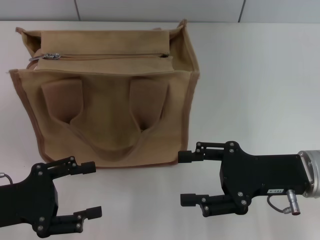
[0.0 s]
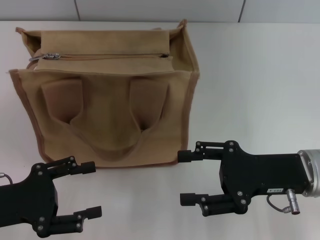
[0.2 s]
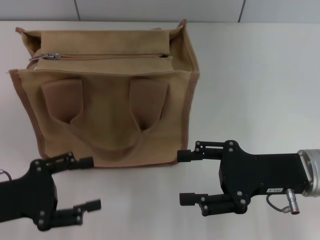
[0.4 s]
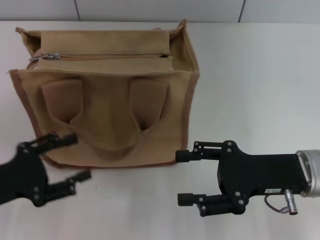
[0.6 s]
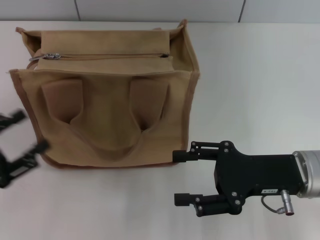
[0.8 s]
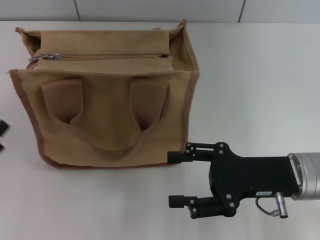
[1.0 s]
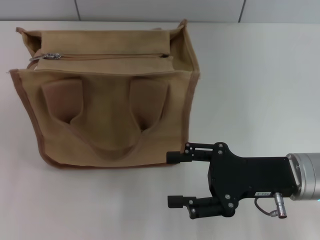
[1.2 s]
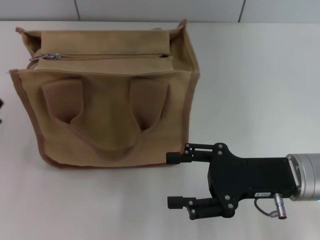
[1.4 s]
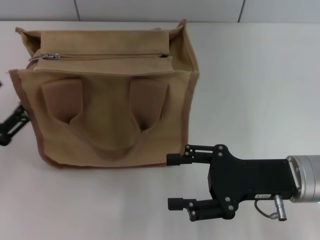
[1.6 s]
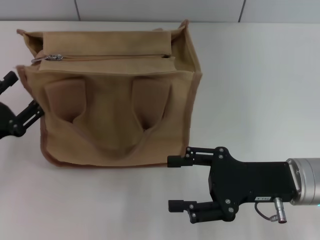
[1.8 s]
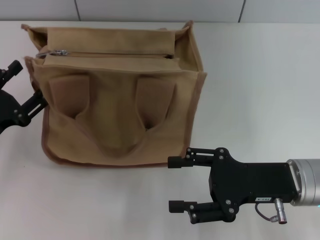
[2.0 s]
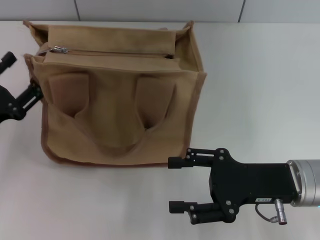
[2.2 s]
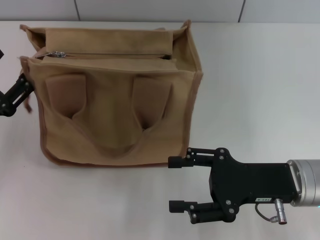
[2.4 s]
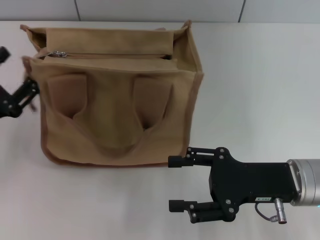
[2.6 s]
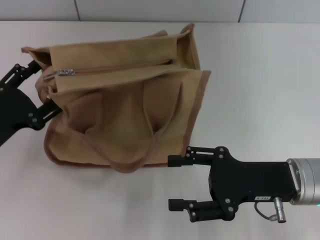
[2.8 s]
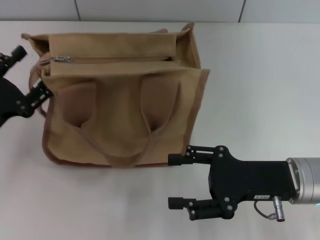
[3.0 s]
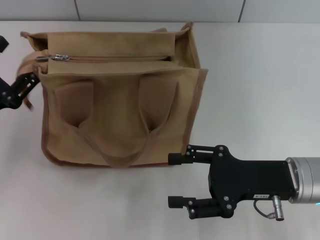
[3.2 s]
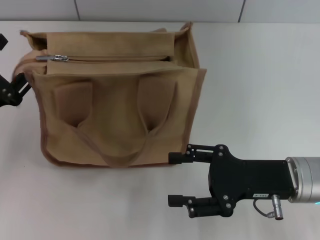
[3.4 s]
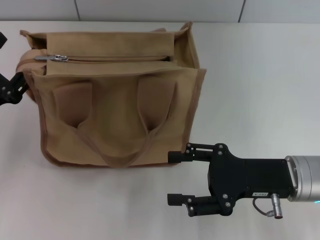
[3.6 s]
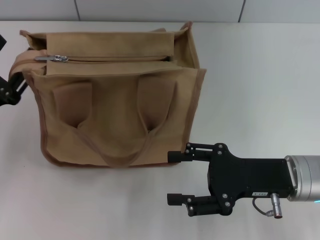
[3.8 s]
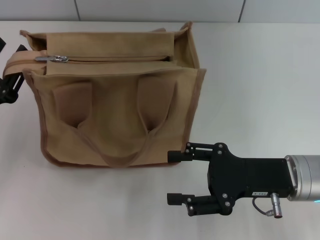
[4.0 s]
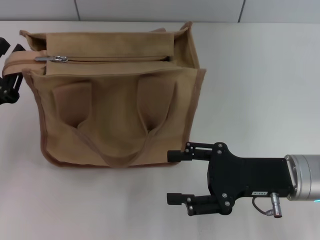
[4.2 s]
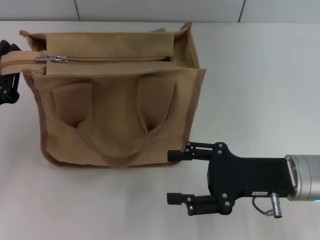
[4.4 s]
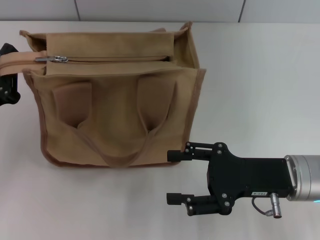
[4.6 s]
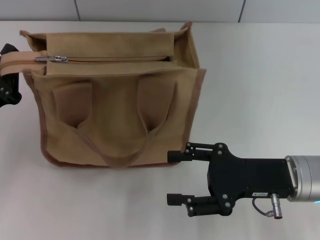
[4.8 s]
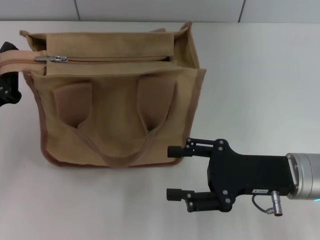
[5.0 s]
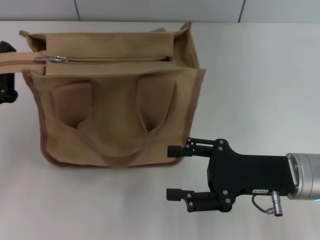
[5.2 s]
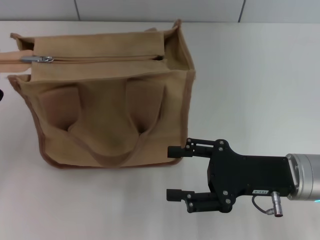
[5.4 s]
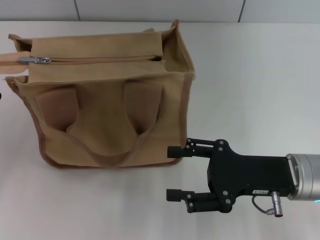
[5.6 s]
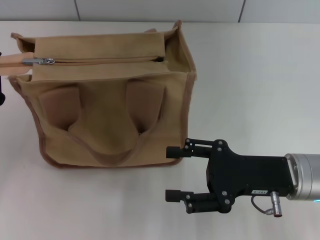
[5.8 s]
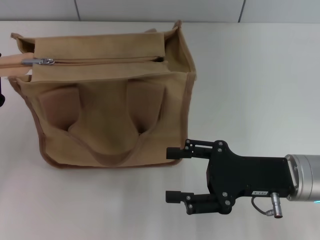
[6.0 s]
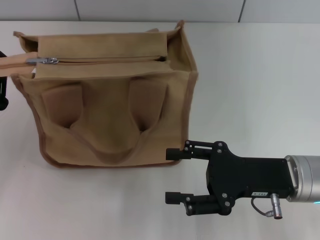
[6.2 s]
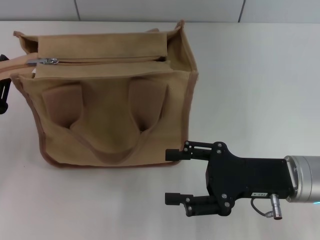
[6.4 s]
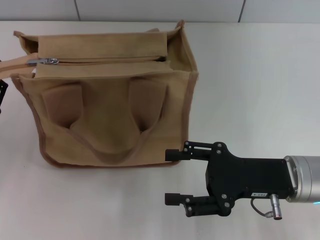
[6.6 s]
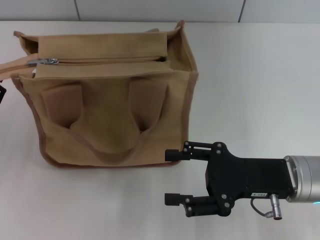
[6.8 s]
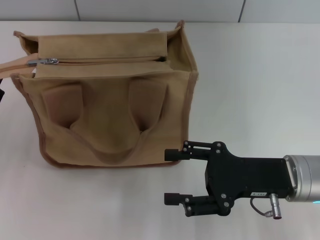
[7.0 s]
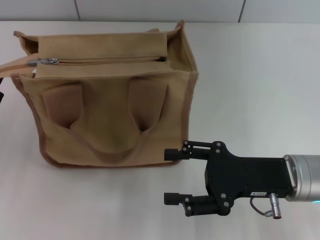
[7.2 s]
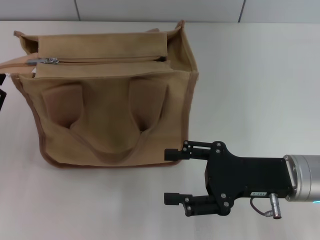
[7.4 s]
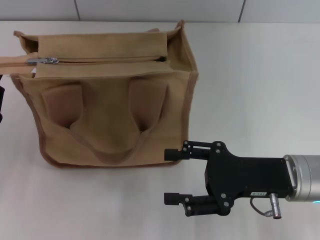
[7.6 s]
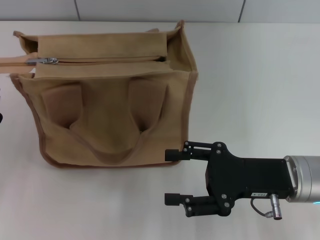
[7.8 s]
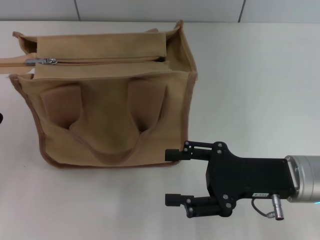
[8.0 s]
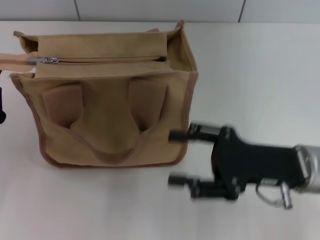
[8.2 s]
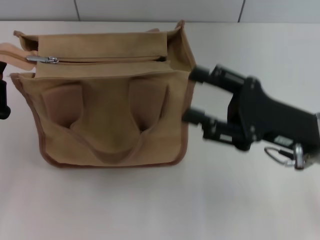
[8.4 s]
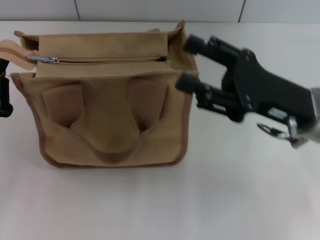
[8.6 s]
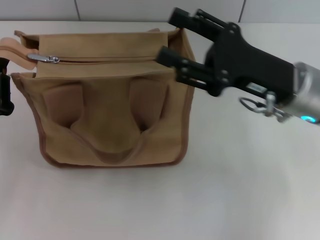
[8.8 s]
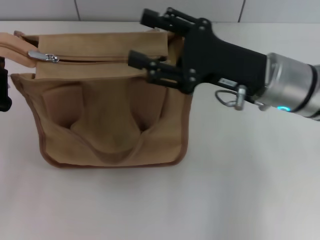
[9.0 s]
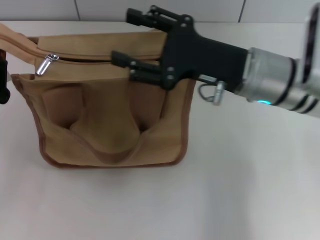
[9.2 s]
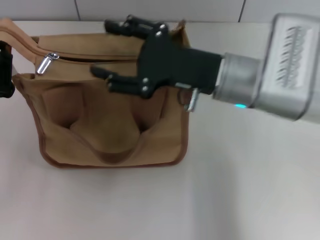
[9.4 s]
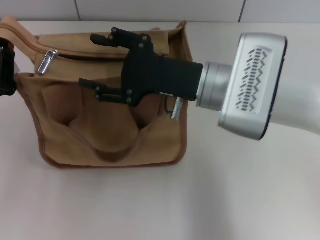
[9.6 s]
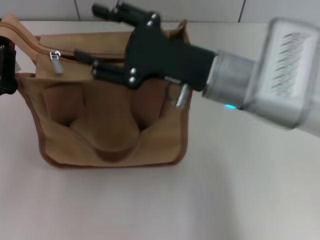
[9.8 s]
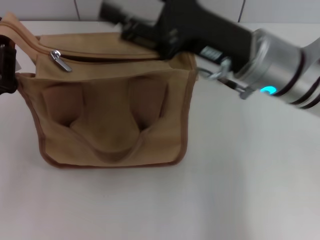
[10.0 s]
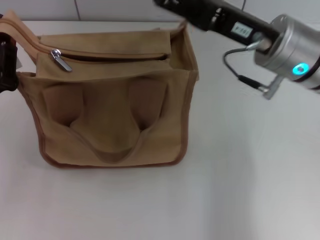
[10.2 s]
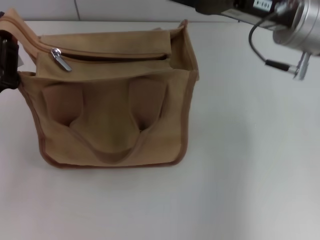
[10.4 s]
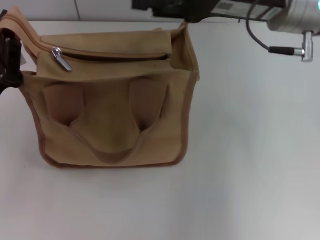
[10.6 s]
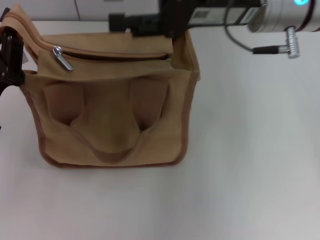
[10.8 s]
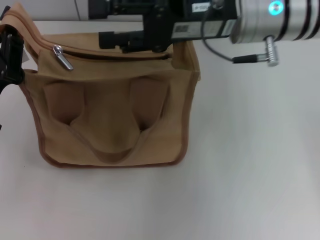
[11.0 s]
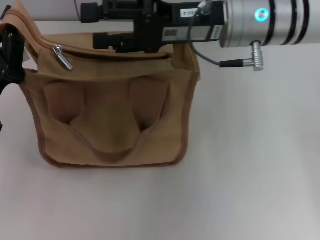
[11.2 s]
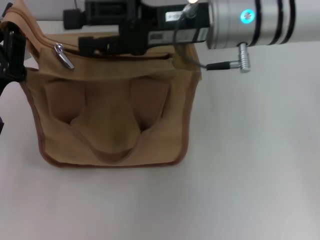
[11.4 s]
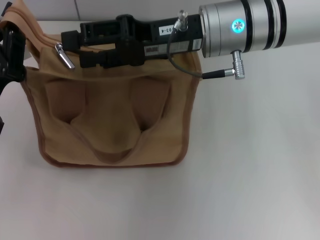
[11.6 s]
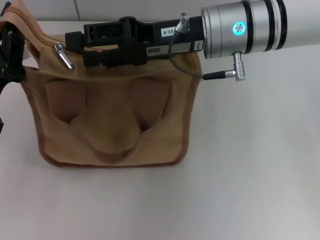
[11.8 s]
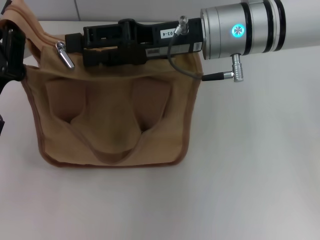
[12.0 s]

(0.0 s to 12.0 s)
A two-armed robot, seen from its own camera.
1.6 s - 3.0 s: The left gripper moves approximately 5 cm.
3.0 s - 4.4 s: The left gripper closes its fingers.
4.4 s - 6.0 s: The left gripper closes its fingers.
6.0 s - 7.6 s: The left gripper opens.
7.6 s - 9.0 s: The right gripper travels forward and upward by approximately 10 cm. The left gripper closes its fingers.
9.0 s - 10.4 s: The right gripper goes roughly 5 cm upward, and goes to the left and returns, approximately 5 cm each way.
10.4 s - 12.0 s: The right gripper goes approximately 10 cm to the left.

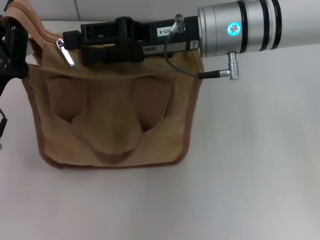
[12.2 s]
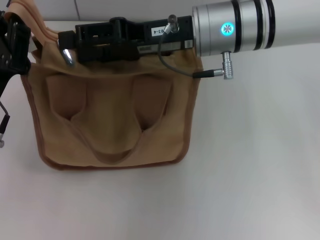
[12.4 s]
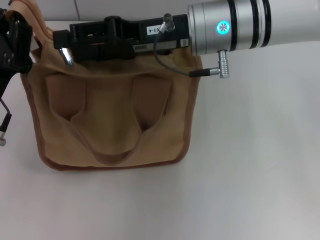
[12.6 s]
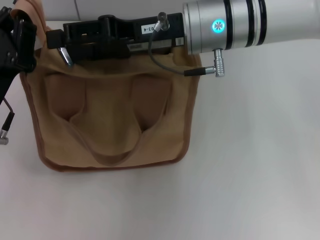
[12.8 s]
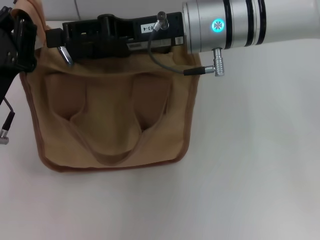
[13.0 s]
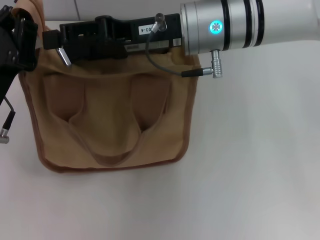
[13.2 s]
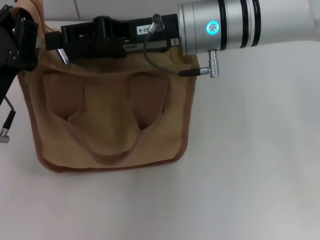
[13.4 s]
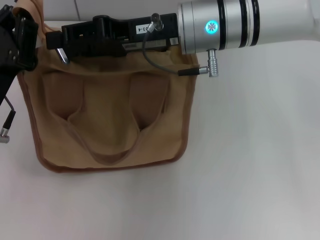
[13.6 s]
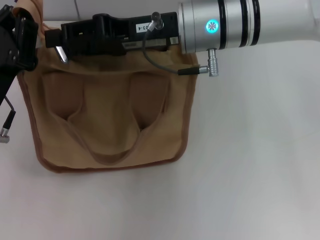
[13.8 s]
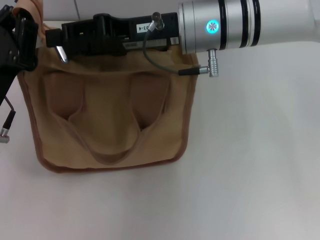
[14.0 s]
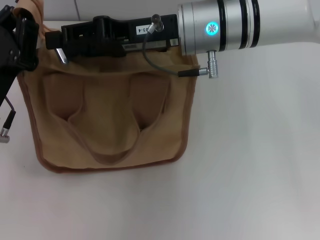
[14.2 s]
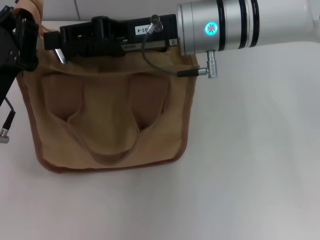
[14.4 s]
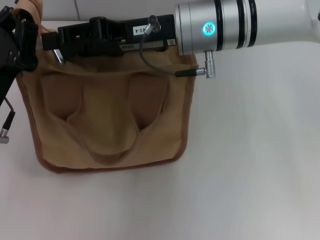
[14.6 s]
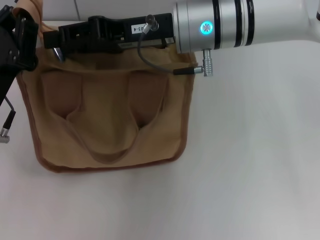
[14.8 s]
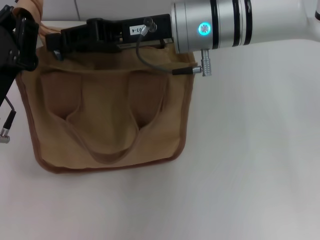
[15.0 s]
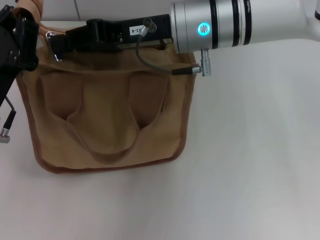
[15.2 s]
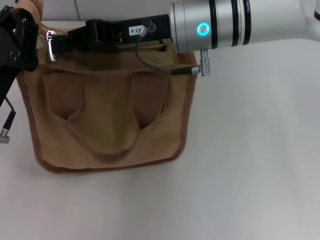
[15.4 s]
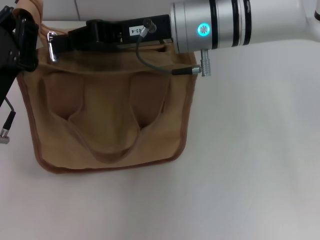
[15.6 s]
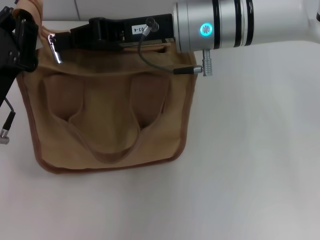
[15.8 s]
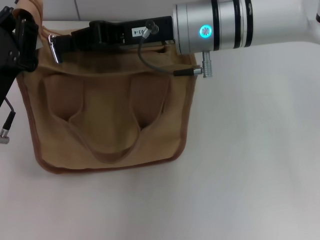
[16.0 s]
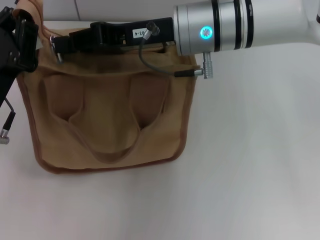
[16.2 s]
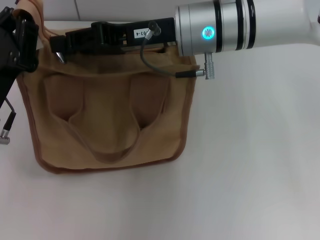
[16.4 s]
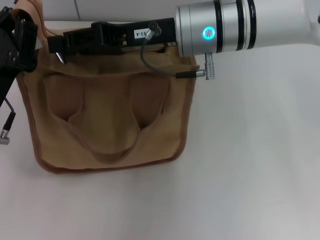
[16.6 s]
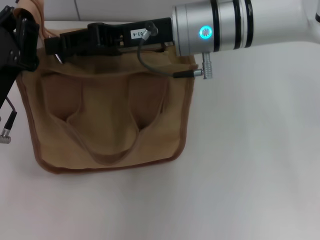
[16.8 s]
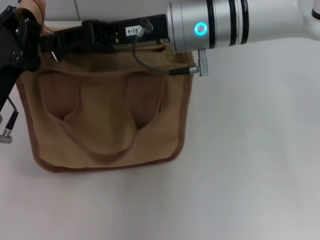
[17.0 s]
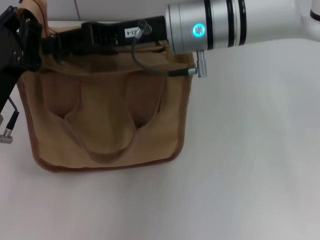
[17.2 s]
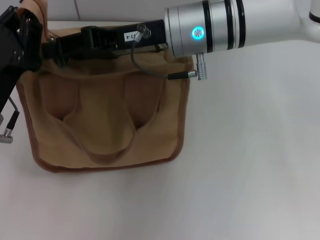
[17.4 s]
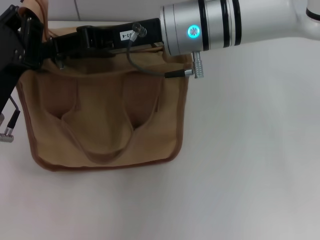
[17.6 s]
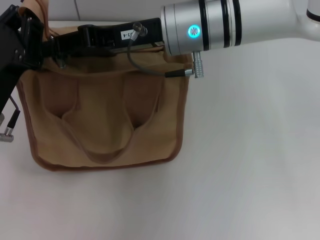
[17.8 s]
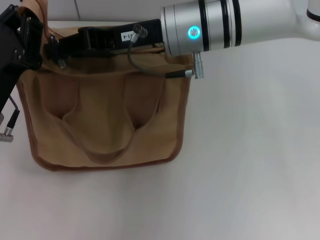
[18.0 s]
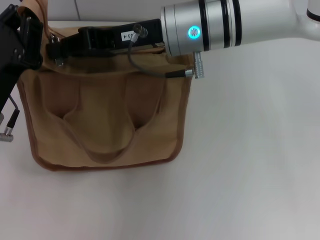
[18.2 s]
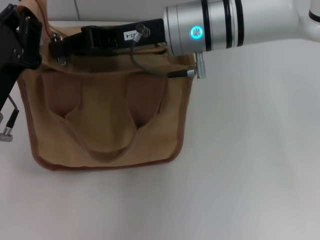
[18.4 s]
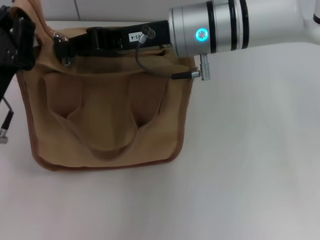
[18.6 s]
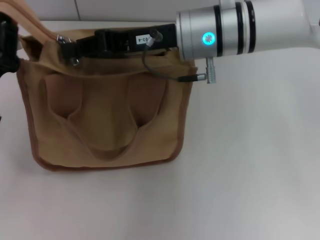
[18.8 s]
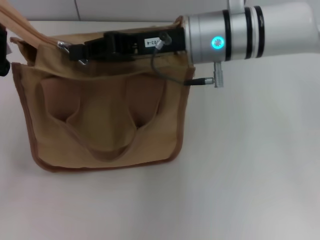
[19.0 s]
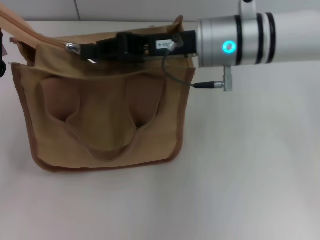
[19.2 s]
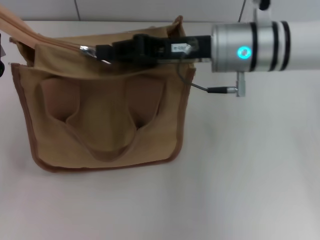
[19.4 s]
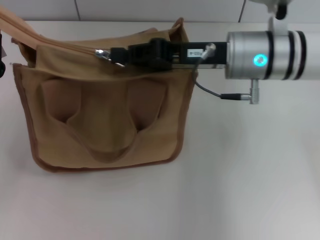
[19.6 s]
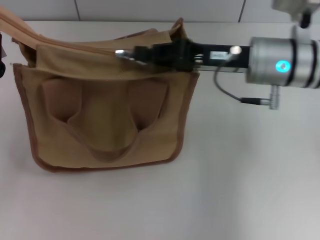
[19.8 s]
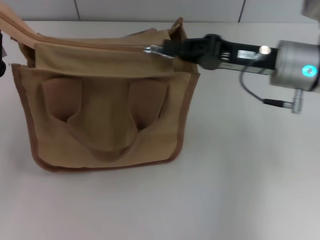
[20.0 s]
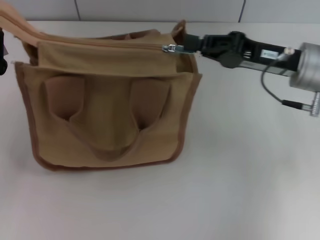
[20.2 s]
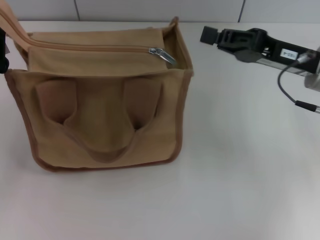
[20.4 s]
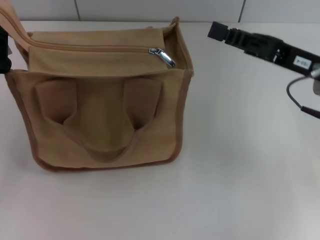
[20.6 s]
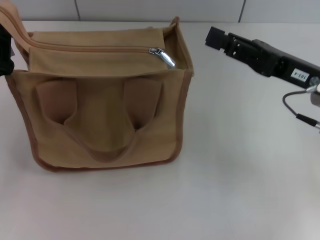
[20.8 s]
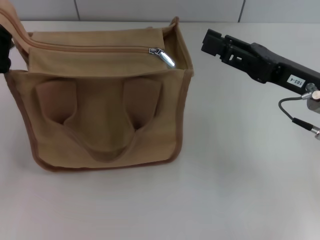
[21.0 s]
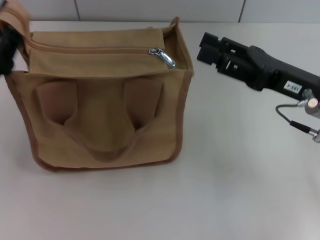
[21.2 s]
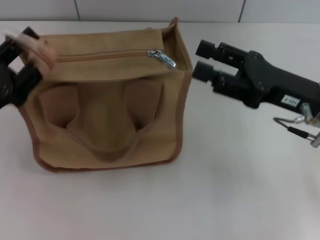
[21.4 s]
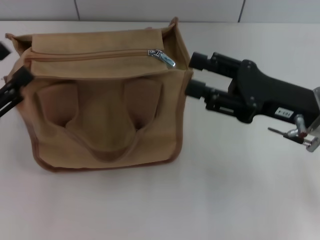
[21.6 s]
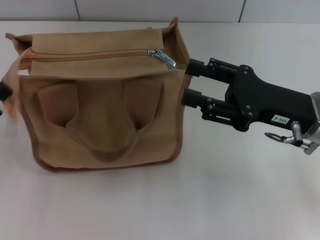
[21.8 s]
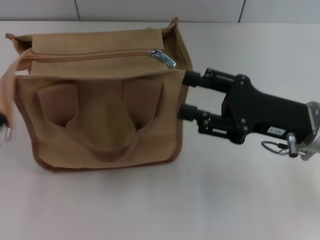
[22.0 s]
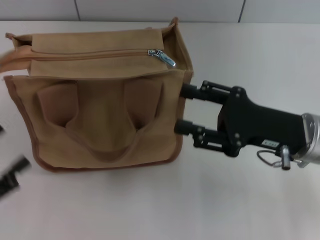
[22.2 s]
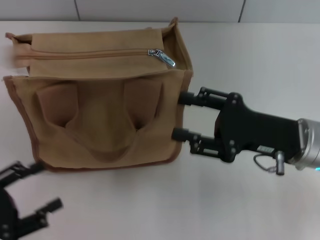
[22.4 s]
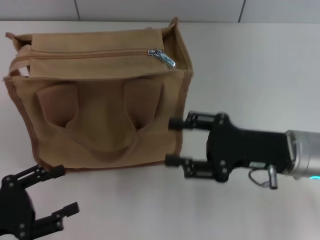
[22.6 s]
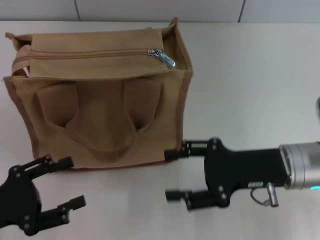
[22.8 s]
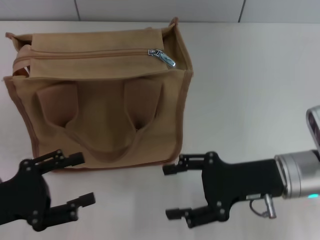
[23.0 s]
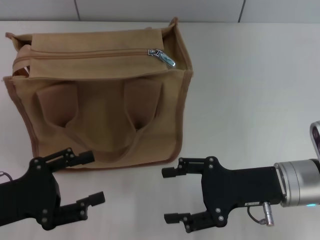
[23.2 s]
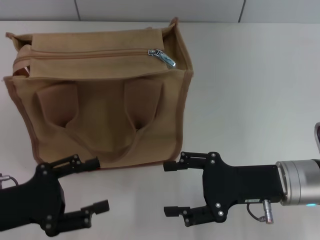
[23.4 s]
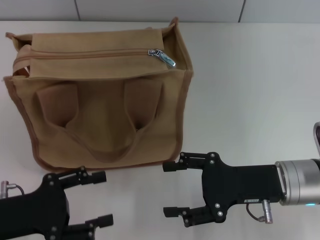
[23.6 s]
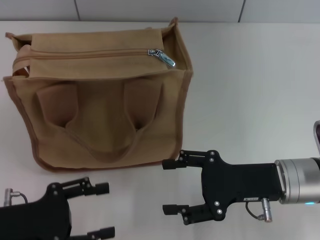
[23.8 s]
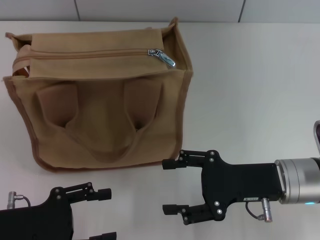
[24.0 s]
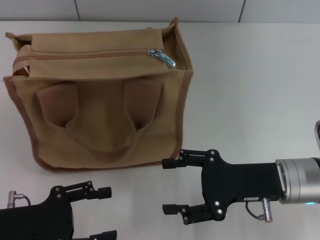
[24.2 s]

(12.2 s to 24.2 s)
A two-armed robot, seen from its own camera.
Step, 12.2 s - 20.2 s: Pull up the zipper with your right hand.
Step, 20.4 s - 21.6 s: Grab the zipper with your left hand.
12.2 s - 15.2 s: The grippers move only a little.
15.2 s - 16.6 s: Both grippers stay about where they are.
16.6 s - 18.2 s: There are only small adjustments of the grippers.
18.2 s - 19.8 s: The right gripper shifts about 10 cm to the right.
19.8 s - 21.2 s: The right gripper heads to the right and backward, covering about 10 cm, and opens up.
21.2 s - 22.6 s: The left gripper moves backward, about 10 cm, and opens up. The right gripper changes place by some 5 cm.
22.6 s - 24.2 s: The left gripper shifts by roughly 5 cm.
